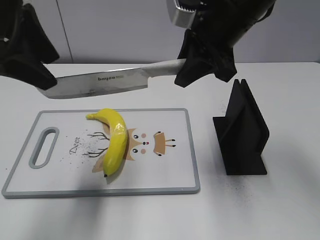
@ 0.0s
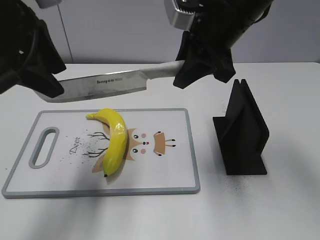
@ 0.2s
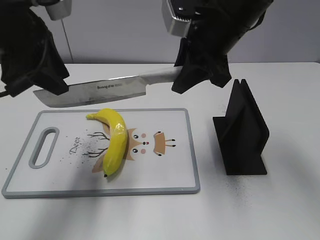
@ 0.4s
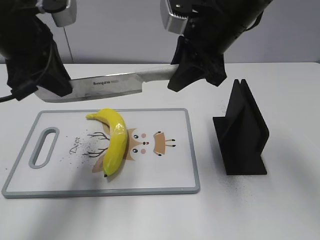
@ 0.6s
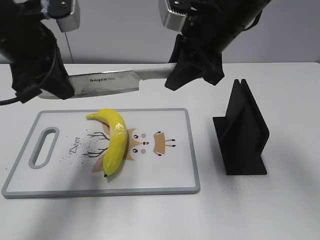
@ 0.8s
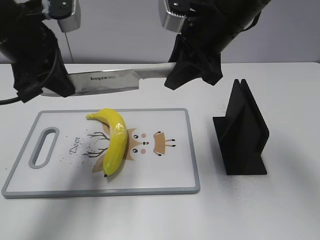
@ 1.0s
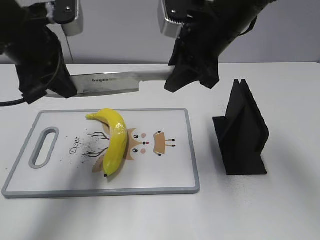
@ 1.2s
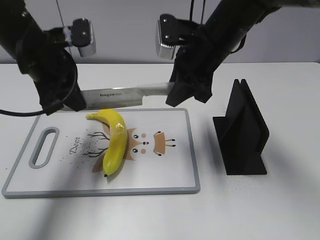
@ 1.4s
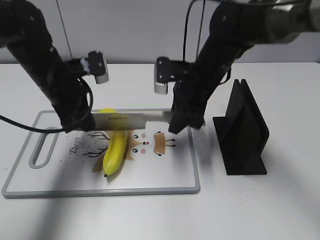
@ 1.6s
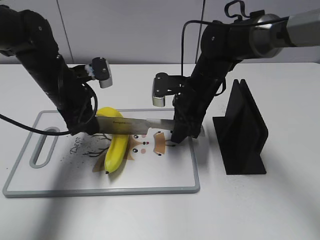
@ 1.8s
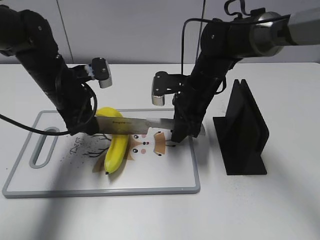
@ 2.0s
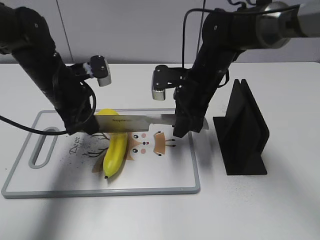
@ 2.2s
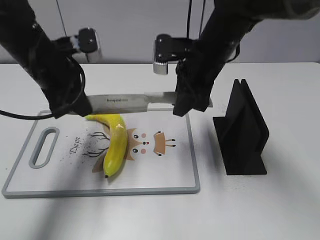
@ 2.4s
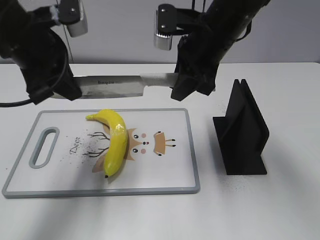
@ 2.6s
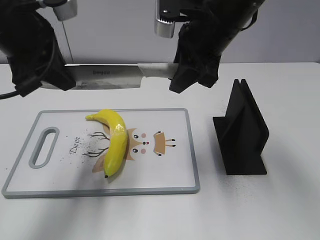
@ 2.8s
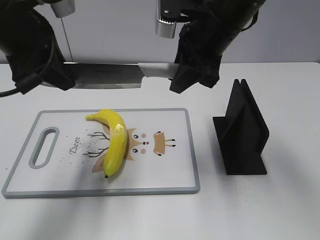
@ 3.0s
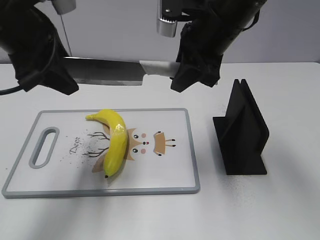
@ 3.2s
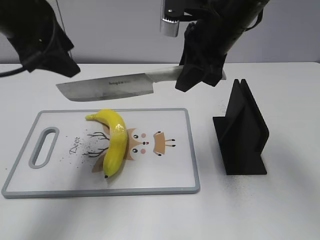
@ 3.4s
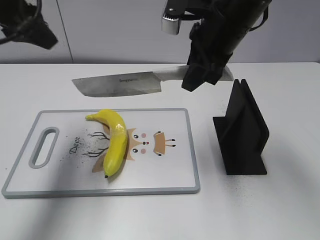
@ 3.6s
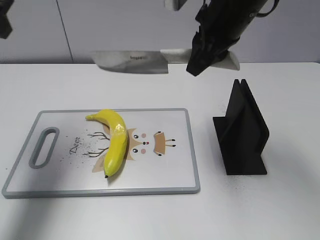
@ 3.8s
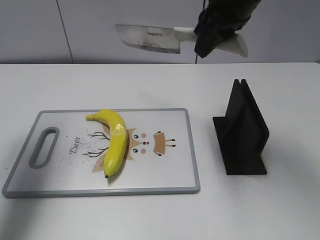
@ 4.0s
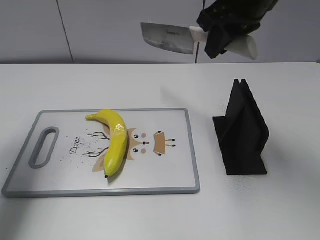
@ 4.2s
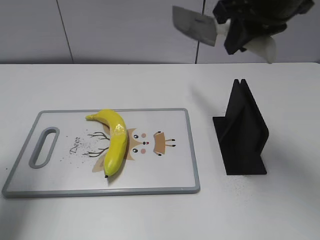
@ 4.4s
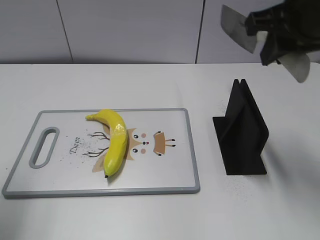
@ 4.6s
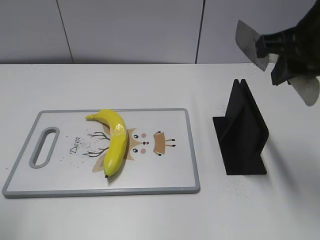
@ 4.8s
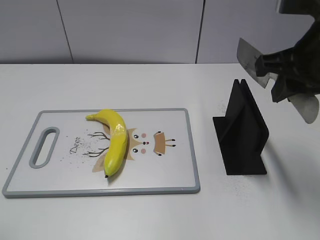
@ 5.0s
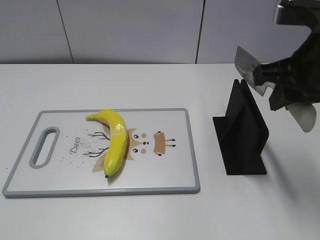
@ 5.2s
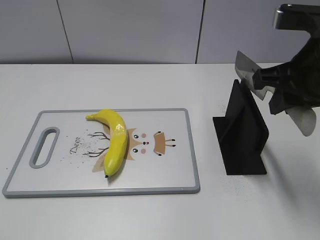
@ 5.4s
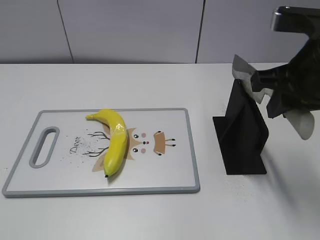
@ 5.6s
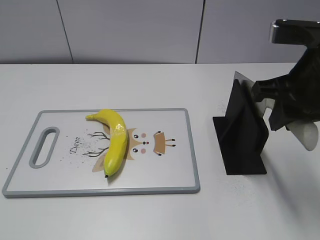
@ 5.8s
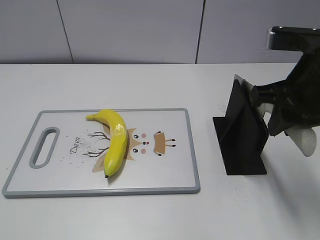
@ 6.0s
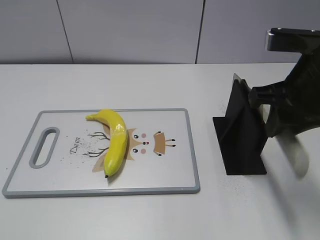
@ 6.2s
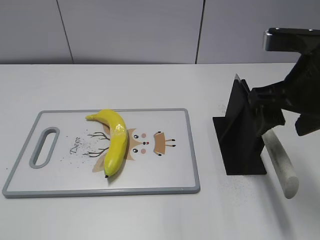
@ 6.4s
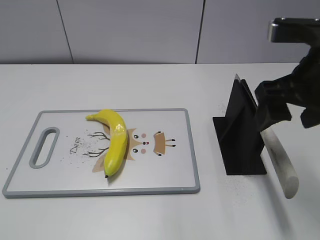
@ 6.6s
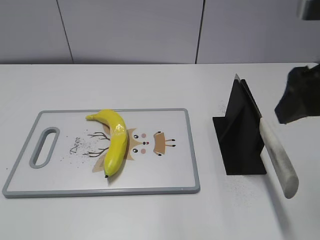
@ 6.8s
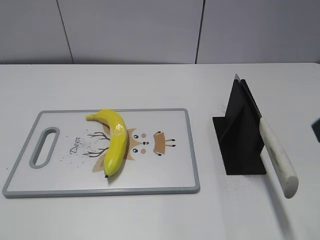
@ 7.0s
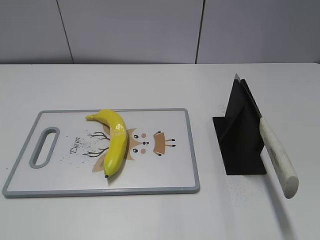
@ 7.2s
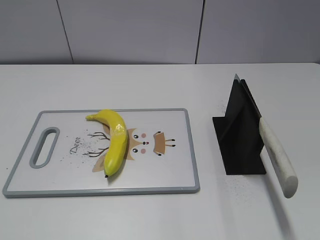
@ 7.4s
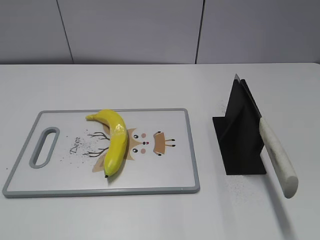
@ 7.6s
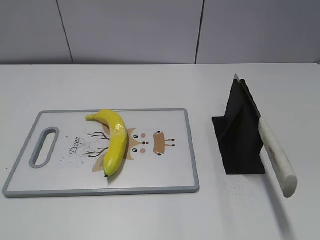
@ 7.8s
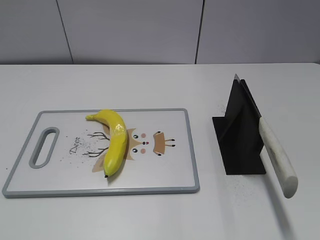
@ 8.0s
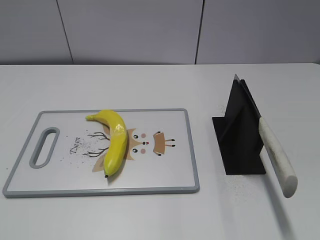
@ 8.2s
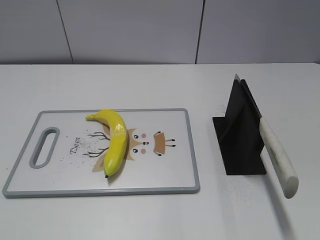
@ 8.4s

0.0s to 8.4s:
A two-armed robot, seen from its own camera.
Task of the whole recording: cut plastic banana.
Step, 0.0s to 2.8s: Lift the knife with your right hand.
Step, 3.0s to 4.0s: Cut the banana with your right hand.
Step, 4.4s to 5.0s: Lift the knife with your right hand.
Step, 5.2s to 8.4s: Place the knife on the storage rack with your right hand.
0.0s to 1.4s: The right gripper travels downward by some 10 cm. Meanwhile the left gripper is displaced downward and forward by some 15 cm, and closes up.
1.4s to 2.8s: The grippers both shift upward by about 5 cm.
2.8s to 4.2s: The right gripper shifts roughly 5 cm upward, while the left gripper moves to the left, some 10 cm, and opens its fingers.
4.2s to 5.6s: The left gripper is displaced backward by roughly 30 cm. Meanwhile the right gripper shifts about 10 cm backward, to the right and downward.
5.6s to 7.0s: The right gripper shifts approximately 10 cm backward and upward, and opens its fingers.
